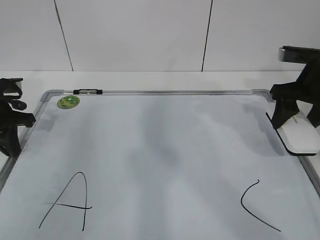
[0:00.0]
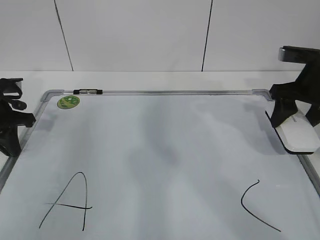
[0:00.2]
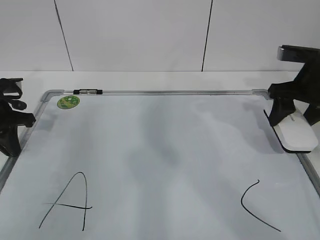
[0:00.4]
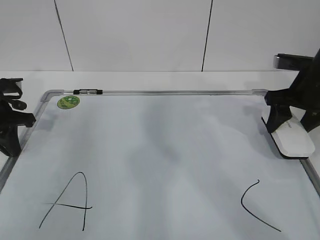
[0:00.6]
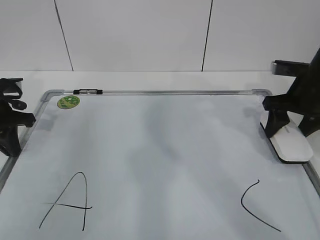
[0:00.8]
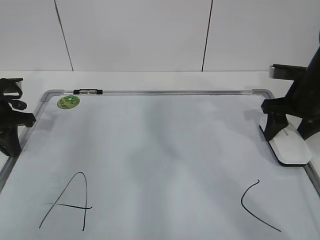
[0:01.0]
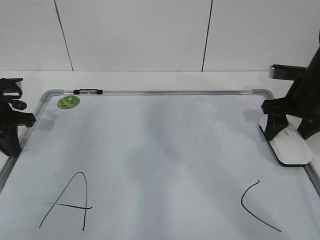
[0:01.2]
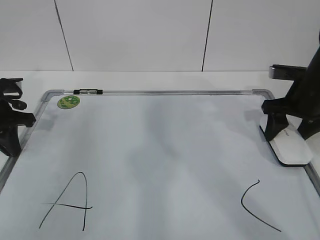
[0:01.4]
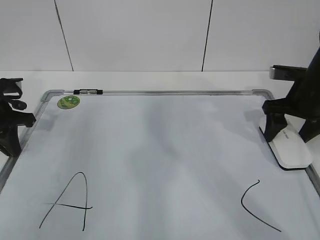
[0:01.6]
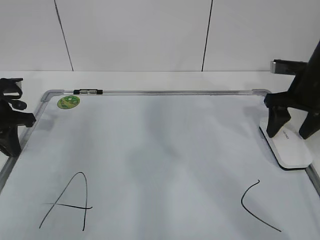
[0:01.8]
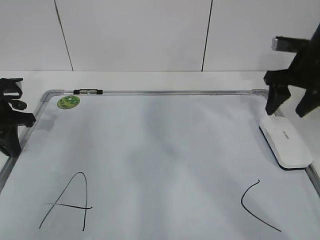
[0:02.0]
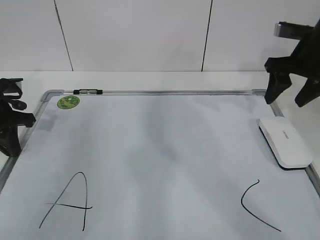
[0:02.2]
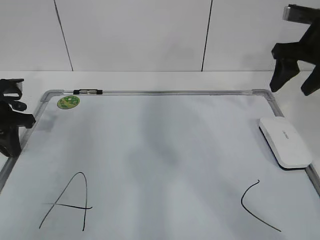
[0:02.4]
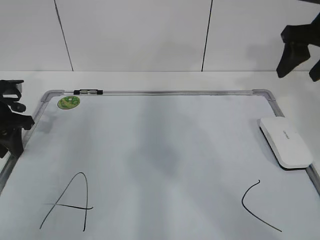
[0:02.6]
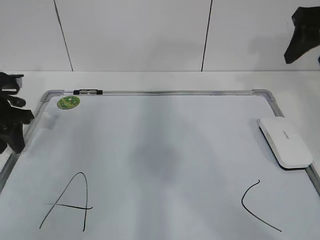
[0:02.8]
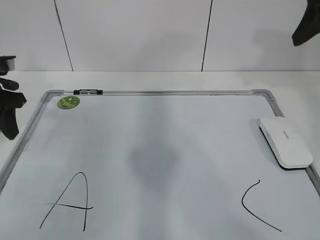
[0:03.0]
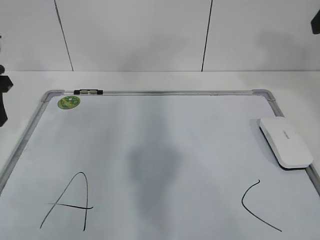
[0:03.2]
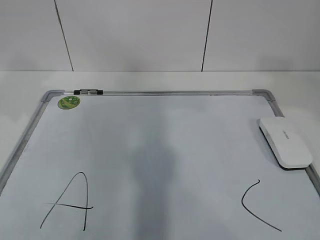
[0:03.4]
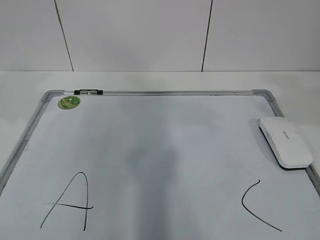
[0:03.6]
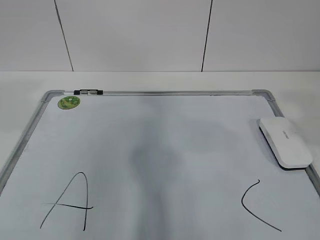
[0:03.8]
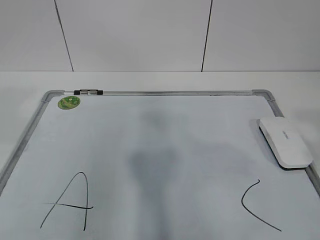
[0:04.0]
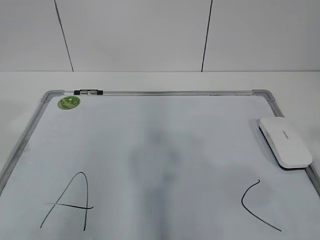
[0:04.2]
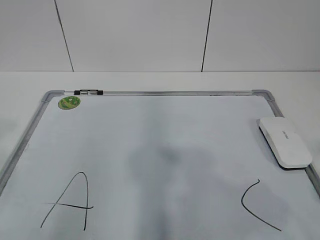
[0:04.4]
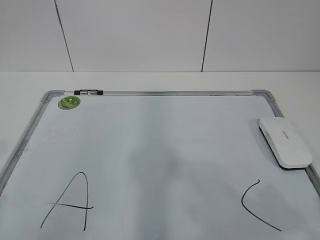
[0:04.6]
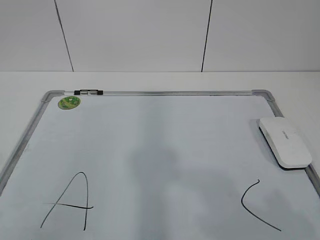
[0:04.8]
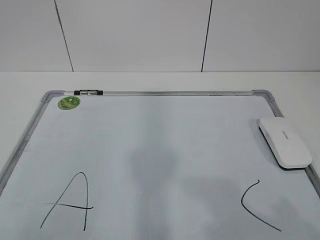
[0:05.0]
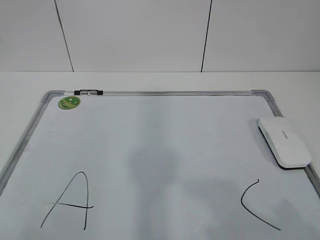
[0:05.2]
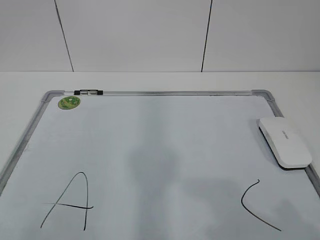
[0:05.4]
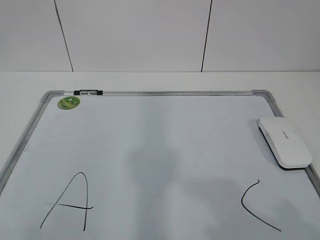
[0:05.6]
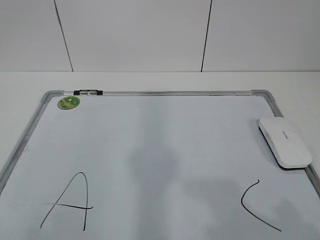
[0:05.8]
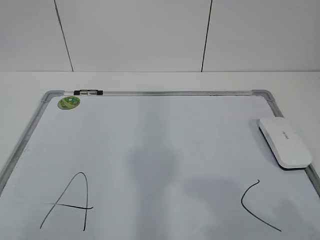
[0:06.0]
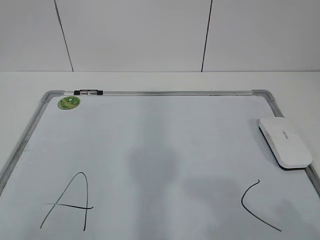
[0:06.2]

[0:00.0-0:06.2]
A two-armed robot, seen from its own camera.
Task of the whole recording: pick up the eraser on the blackboard and erase the letter "B".
0.0 to 1.6 s: The right gripper opens.
1.6 to 3.2 s: The left gripper travels upward by about 10 cm, and opens. The right gripper heads upward and backward, covering some 25 cm, and closes its fingers.
3.2 to 4.6 s: Both grippers move backward, roughly 30 cm.

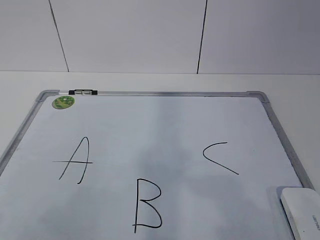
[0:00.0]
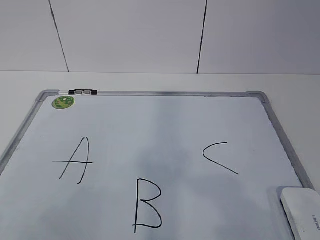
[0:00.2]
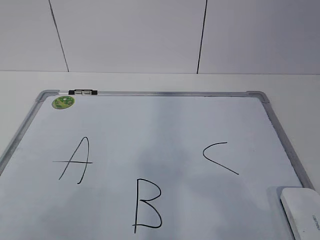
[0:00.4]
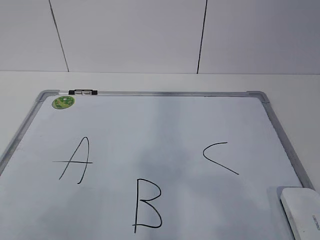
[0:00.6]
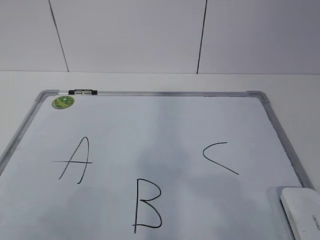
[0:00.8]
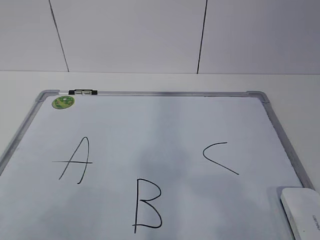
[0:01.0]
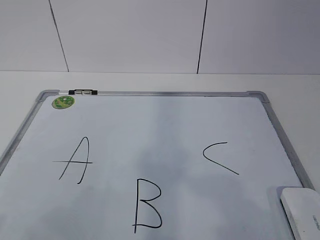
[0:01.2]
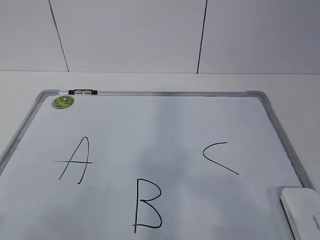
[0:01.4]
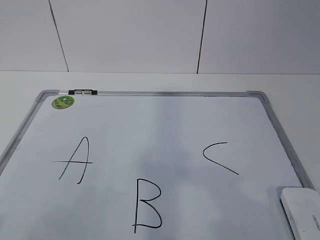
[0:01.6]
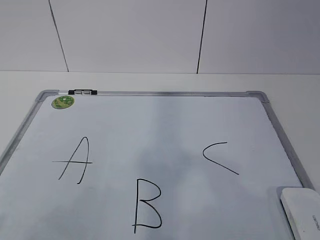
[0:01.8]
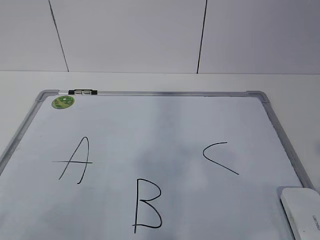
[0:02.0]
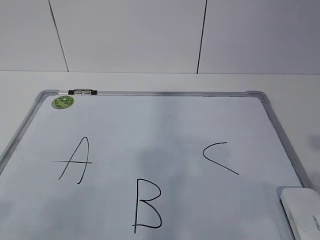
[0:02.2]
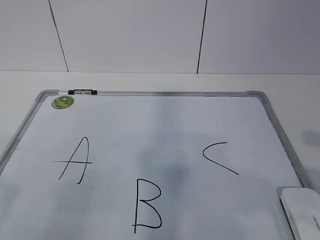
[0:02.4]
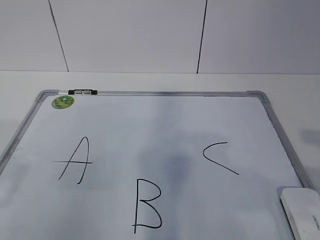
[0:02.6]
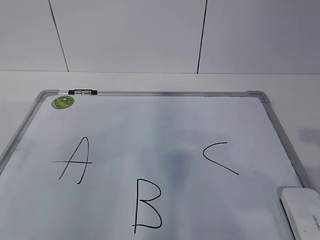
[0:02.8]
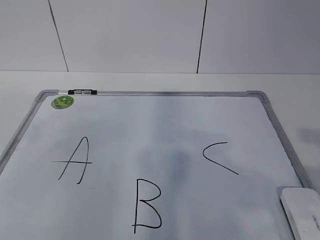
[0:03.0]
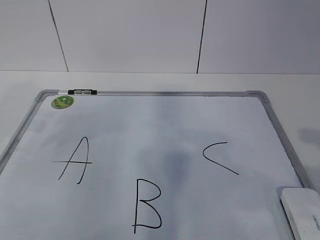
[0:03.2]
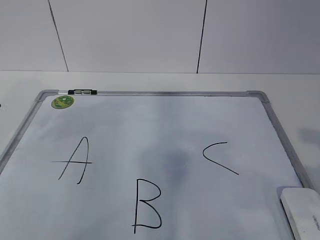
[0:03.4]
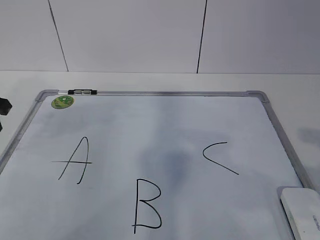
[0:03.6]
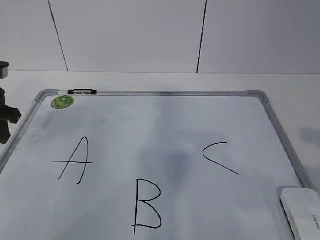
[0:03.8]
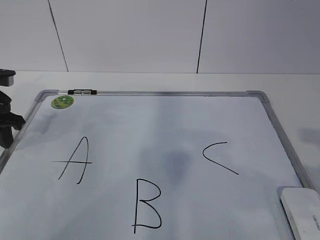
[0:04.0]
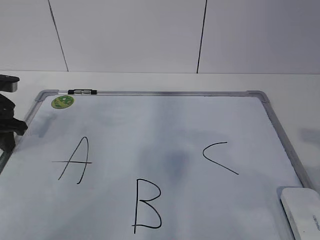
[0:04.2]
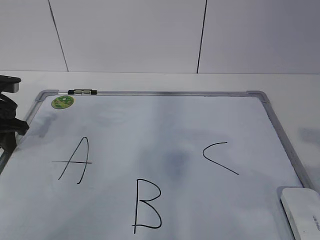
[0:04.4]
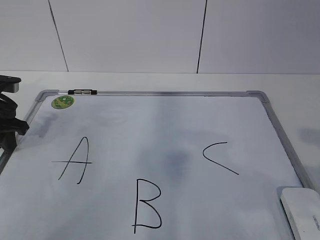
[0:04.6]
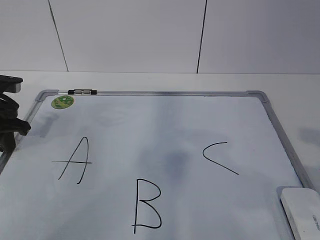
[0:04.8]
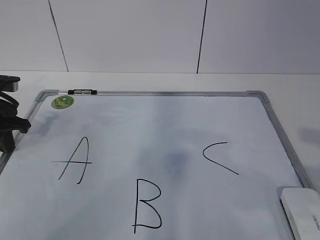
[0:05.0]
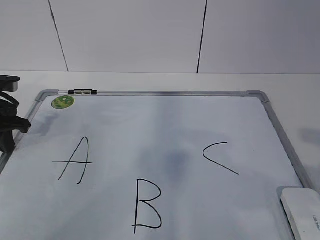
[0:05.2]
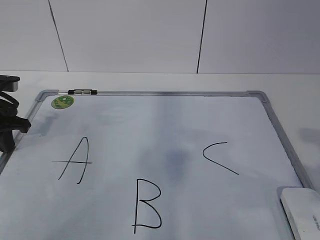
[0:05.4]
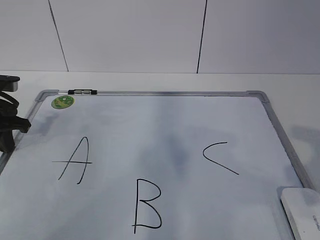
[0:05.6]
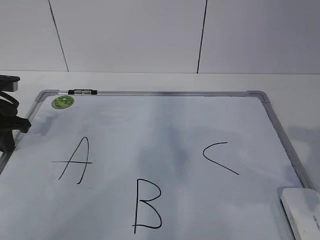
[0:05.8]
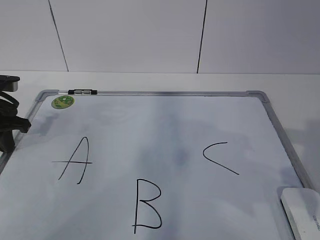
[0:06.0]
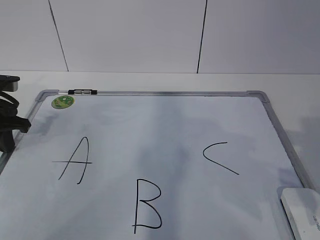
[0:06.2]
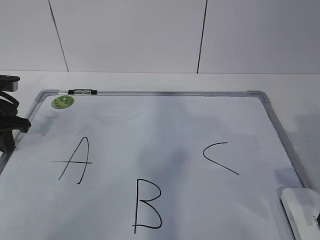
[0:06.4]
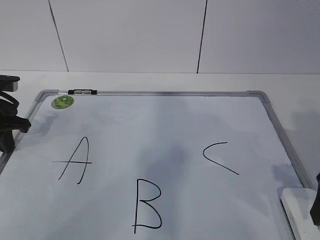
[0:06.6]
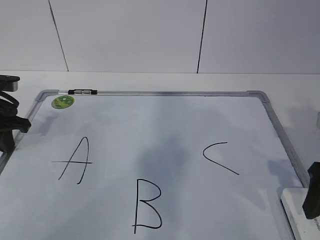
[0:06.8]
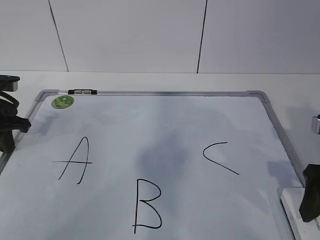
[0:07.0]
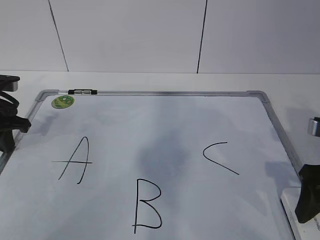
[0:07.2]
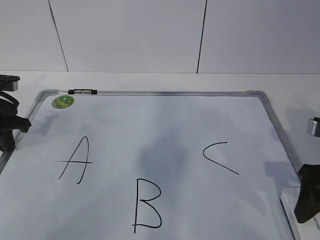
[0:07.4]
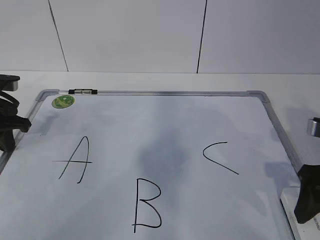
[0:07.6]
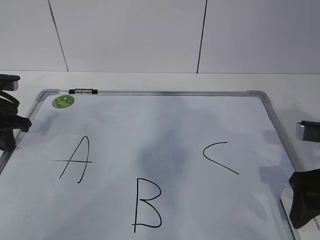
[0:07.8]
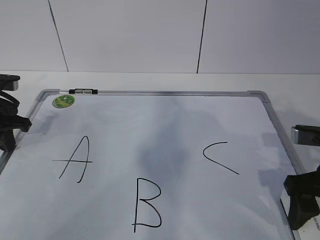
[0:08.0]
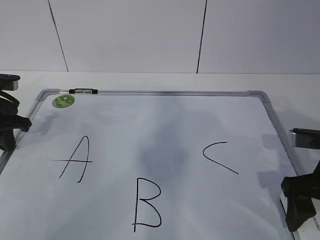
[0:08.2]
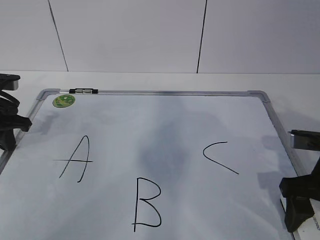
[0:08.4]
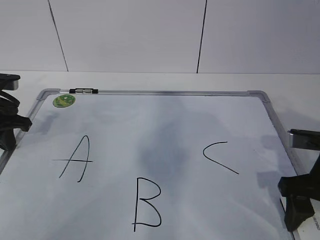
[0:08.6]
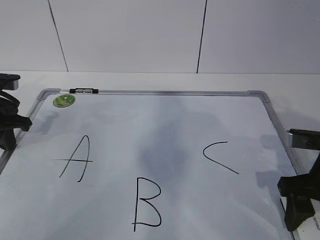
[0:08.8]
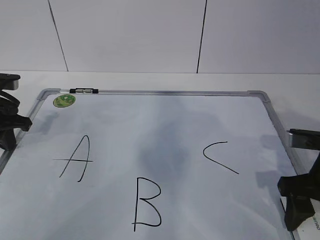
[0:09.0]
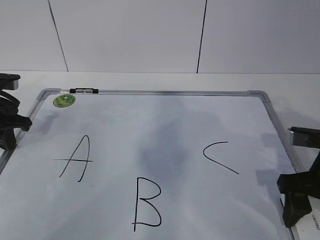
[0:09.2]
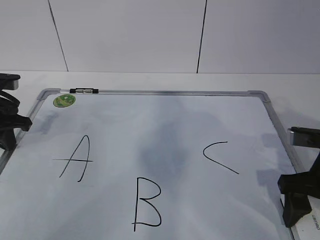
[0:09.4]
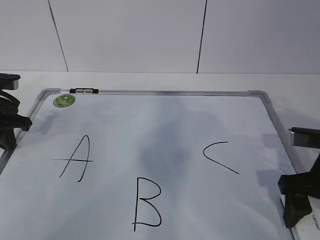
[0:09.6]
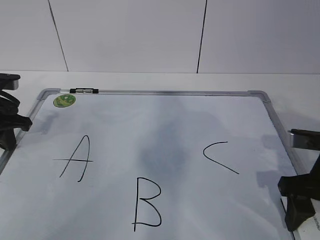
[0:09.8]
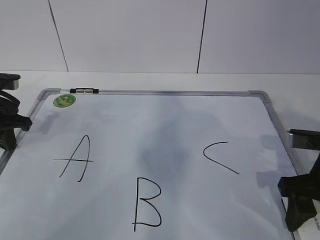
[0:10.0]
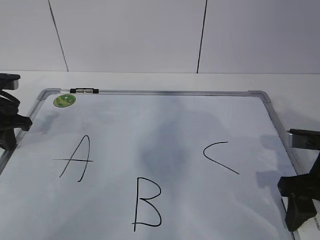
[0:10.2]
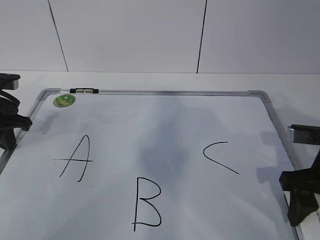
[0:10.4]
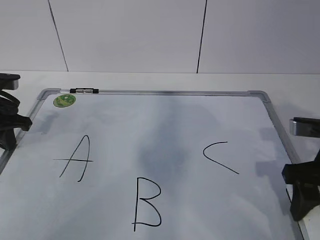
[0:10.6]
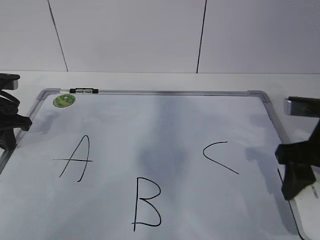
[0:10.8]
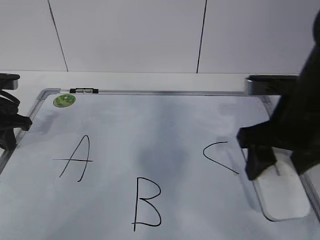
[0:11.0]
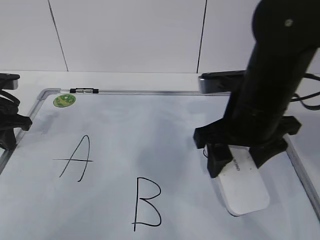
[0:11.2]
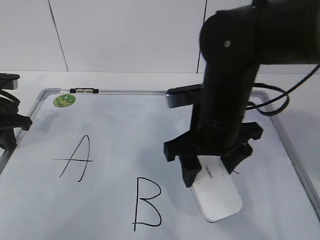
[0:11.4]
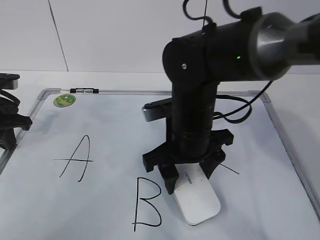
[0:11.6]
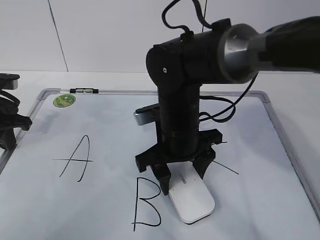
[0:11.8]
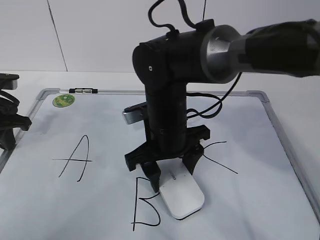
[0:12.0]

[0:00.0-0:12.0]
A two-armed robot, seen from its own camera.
Task of the whole recording: pick up the eraser on the blackboard and erase the letter "B".
Step, 4.2 to 8.0 s: Grab the eraser with your right hand.
1.6 to 3.0 s: The right gripper is displaced forward by approximately 10 cm; the left gripper shifts approximately 20 cm forward.
3.0 to 4.4 s: The left gripper is displaced forward and downward by roughly 20 cm.
6.0 to 7.6 s: The right gripper is displaced forward and downward by some 10 cm.
7.6 to 9.0 s: The right gripper closes up.
9.0 to 10.4 s: The right gripper opens and closes again.
10.4 to 12.0 s: The right gripper is displaced to the left by about 25 cm.

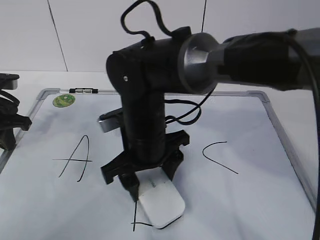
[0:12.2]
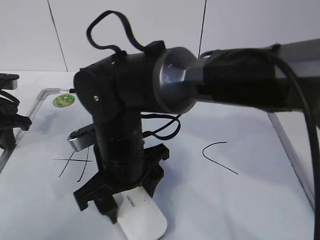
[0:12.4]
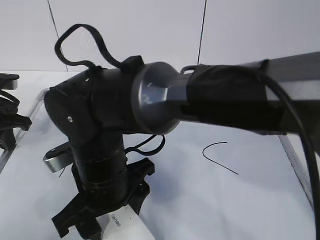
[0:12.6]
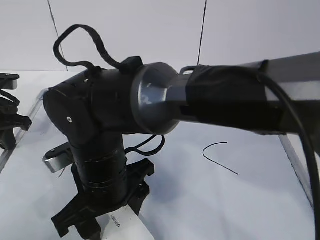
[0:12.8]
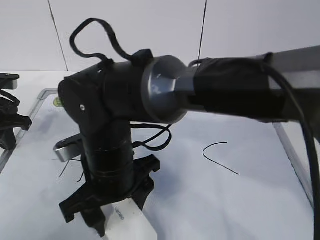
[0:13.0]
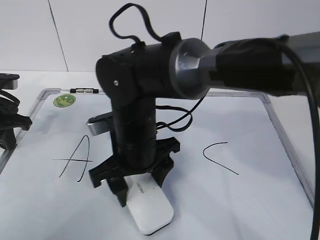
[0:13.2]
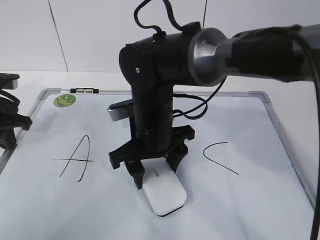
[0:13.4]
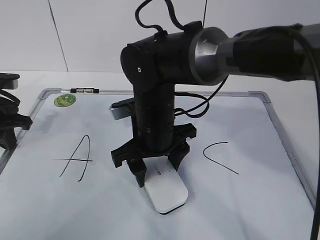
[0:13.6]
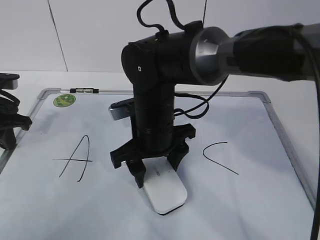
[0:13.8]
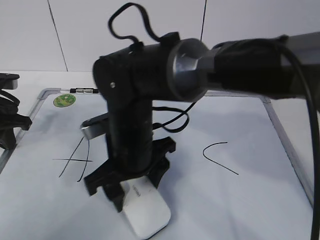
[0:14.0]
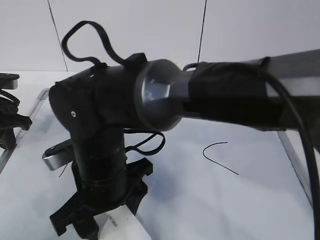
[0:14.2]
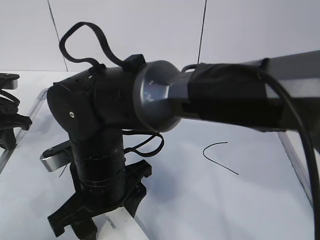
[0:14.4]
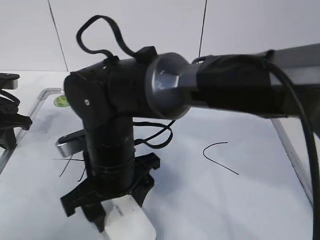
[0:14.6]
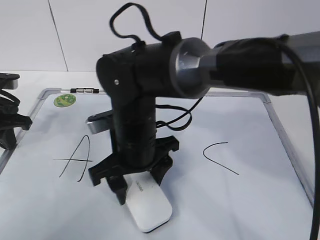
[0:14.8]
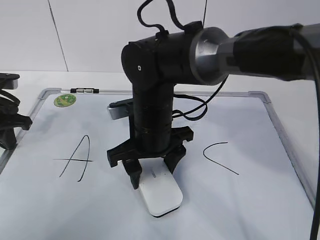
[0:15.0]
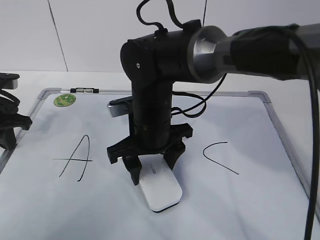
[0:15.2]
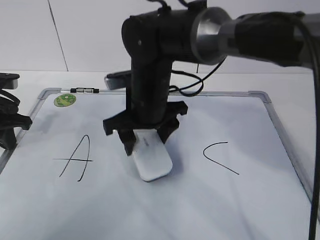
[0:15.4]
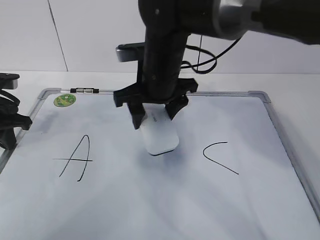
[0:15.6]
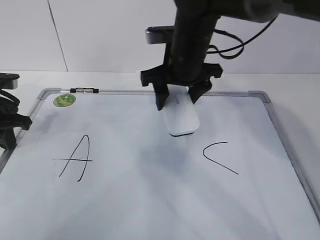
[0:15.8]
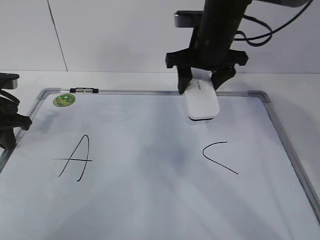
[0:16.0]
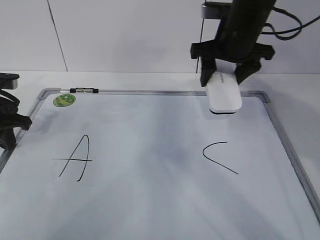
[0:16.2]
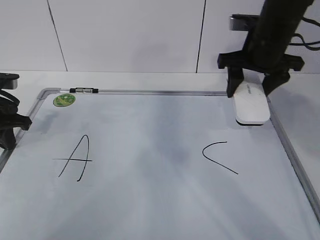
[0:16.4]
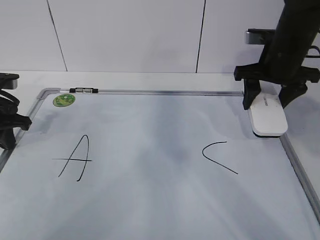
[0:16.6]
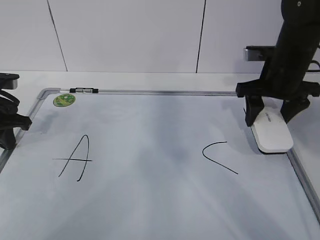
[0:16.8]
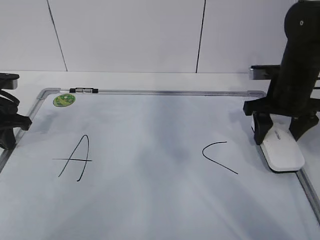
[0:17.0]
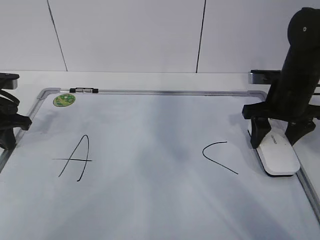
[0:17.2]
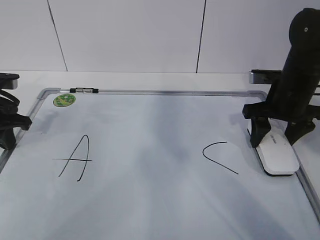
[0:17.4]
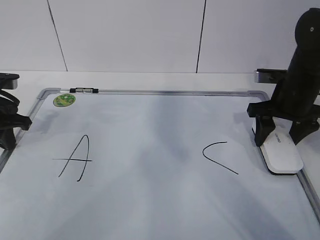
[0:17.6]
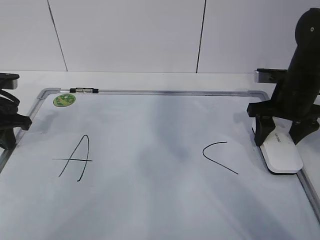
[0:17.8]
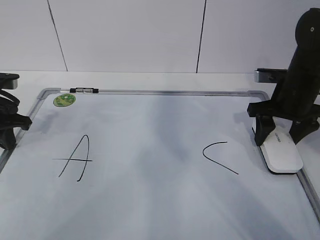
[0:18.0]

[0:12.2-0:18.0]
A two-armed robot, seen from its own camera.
Task of the whole recording: pick up the eraser on the blackboard and erase the letter "B".
Step, 12.8 to 16.0 s: Put down the eraser with your right hand.
12.2 to 13.6 s: The right gripper travels backward and back again, about 5 cm each way.
13.6 to 15.0 s: The right gripper reaches approximately 10 cm backward, then returns.
15.0 to 16.6 s: The right gripper moves to the right, roughly 20 cm.
16.6 to 18.0 s: The right gripper heads downward, covering some 5 cm.
